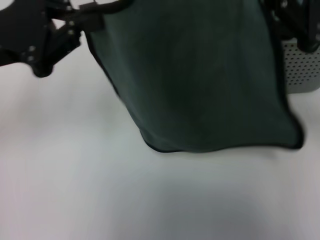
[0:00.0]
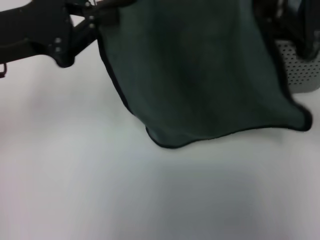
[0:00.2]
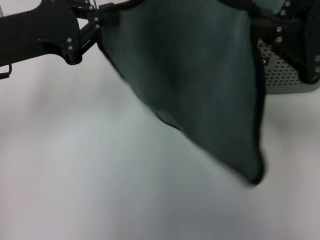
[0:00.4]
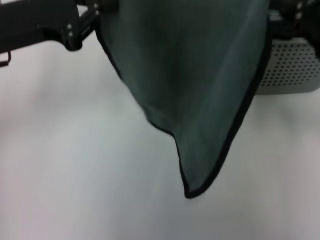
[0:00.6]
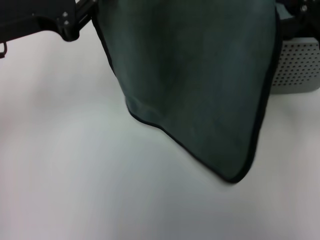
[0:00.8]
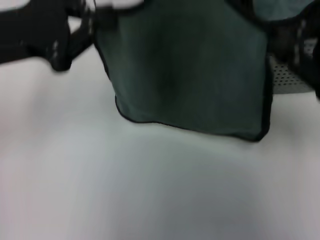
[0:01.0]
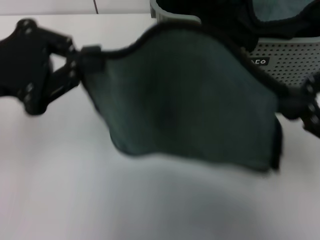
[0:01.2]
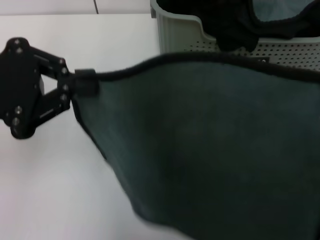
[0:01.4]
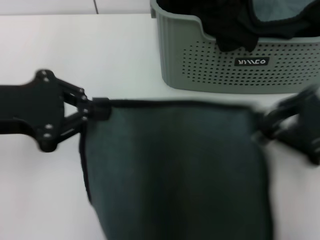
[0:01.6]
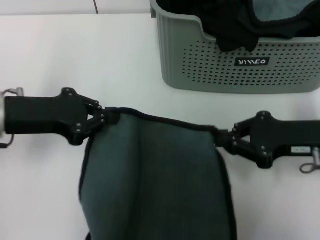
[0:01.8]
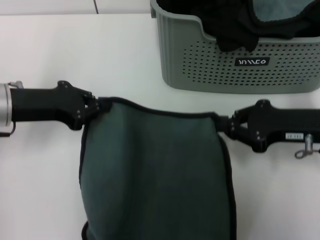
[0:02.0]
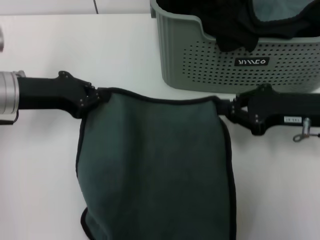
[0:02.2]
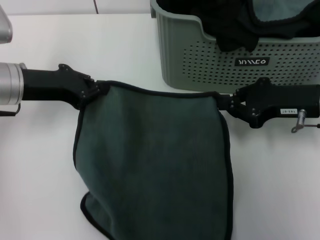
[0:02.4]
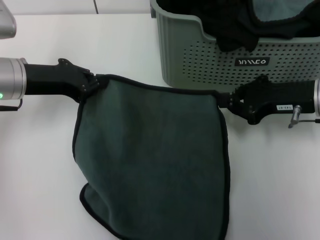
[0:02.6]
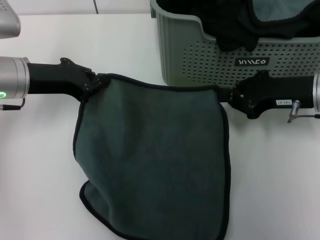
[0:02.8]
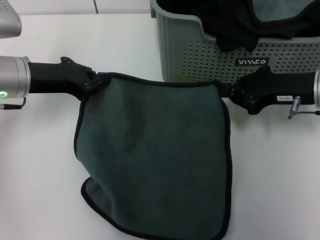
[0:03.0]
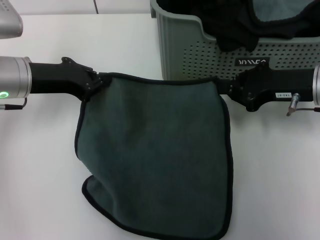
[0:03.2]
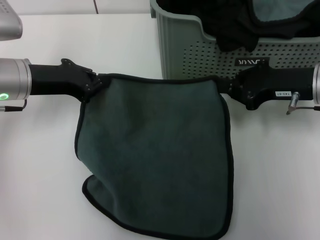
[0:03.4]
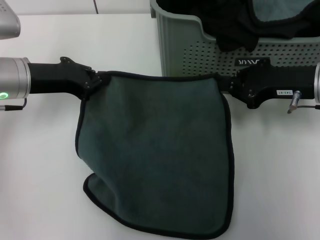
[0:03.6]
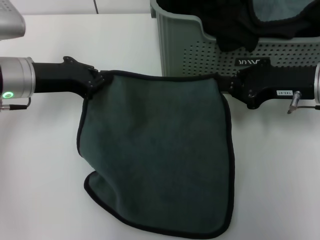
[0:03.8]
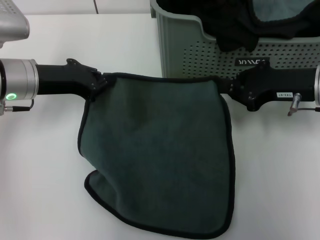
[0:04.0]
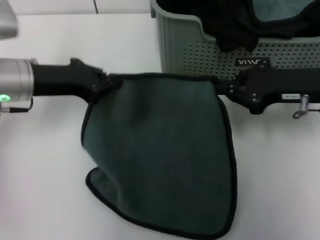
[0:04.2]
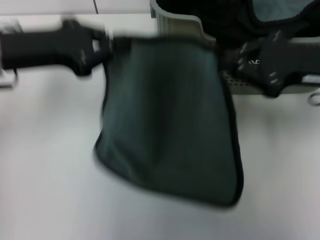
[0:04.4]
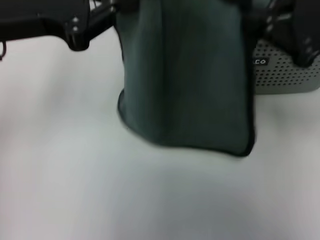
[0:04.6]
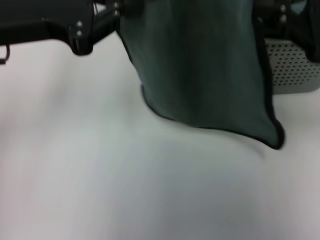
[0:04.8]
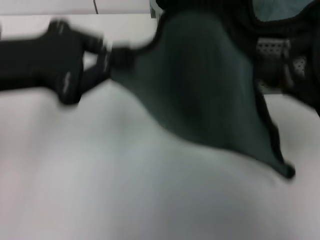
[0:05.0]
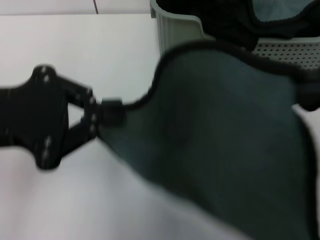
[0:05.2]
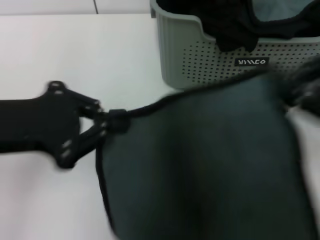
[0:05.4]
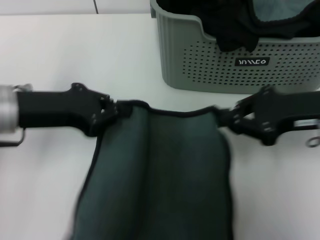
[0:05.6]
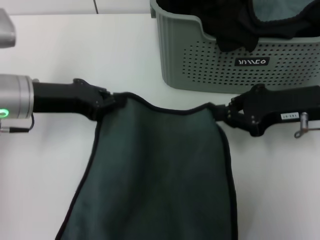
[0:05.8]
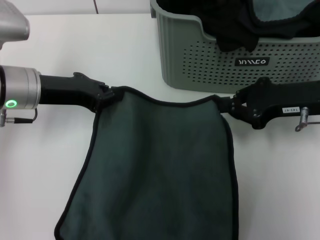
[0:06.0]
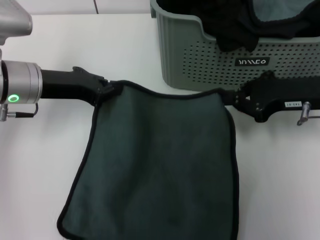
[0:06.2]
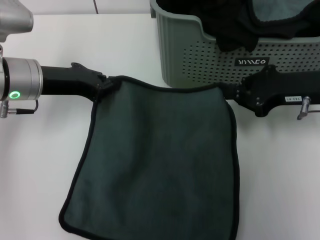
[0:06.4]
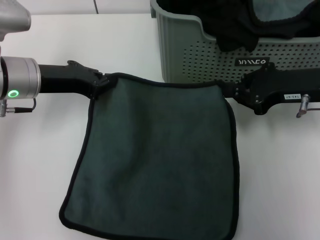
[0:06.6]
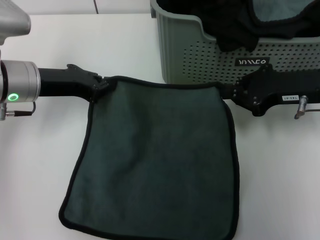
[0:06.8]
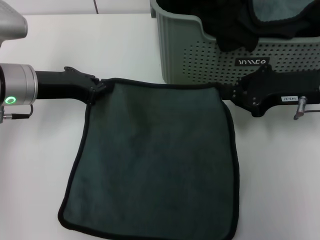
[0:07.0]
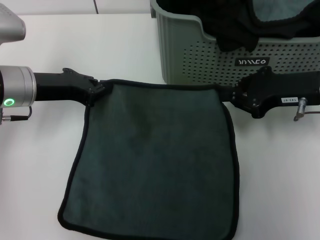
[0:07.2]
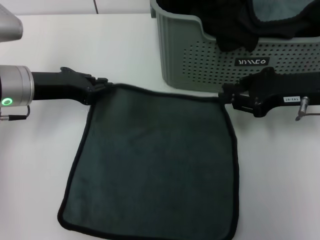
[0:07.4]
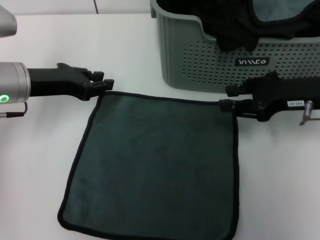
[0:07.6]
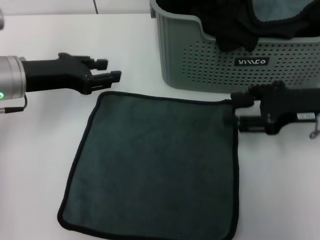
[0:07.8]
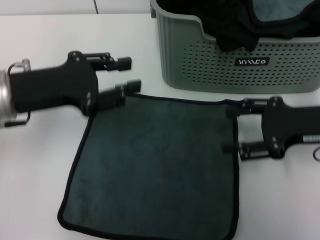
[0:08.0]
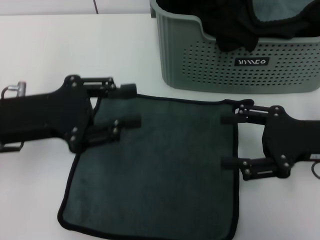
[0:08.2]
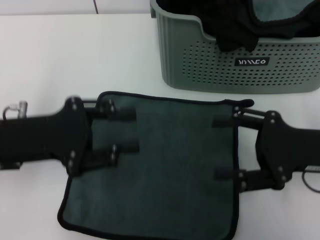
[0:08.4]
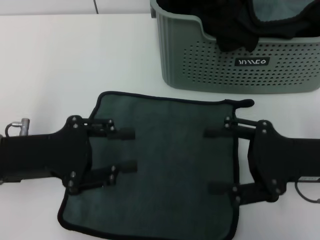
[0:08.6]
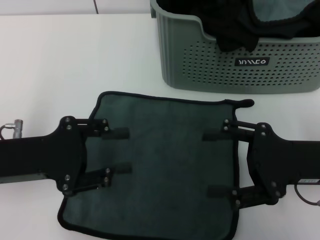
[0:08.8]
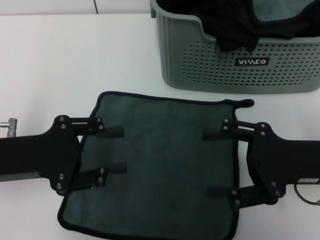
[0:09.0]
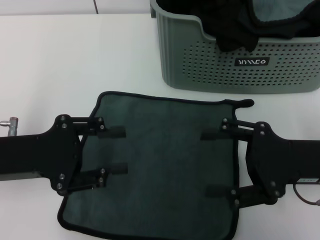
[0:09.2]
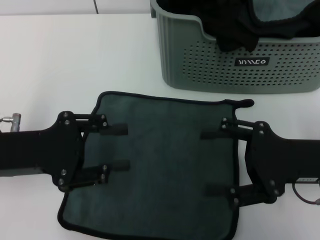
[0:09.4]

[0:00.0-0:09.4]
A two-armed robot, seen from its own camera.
Task of the whole recording: pick up the towel from the storage box and lay it flat on the table.
Step, 0:00.0 to 0:07.4: Spread the towel flat with the left gripper.
0:00.0 to 0:01.6: The right gripper heads downward, covering about 5 cm.
0:01.6 to 0:03.2: The right gripper travels forward by approximately 10 cm; the left gripper heads forward and downward, covering some 15 cm.
0:03.2 to 0:04.8: The grippers both shift upward and backward by approximately 15 cm.
0:04.8 to 0:06.2: The right gripper is displaced downward and forward by approximately 15 cm, while the left gripper is displaced downward by approximately 10 cm.
0:06.2 to 0:07.8: The left gripper opens its fingers.
0:07.8 to 0:09.4: The grippers both shift backward by some 10 cm. The right gripper opens its fingers.
